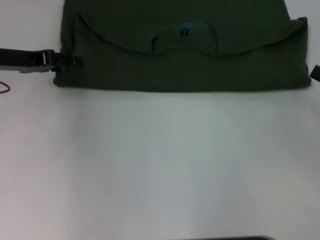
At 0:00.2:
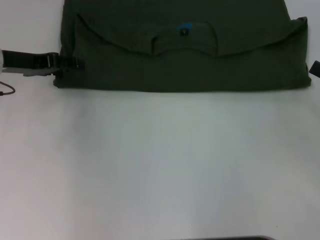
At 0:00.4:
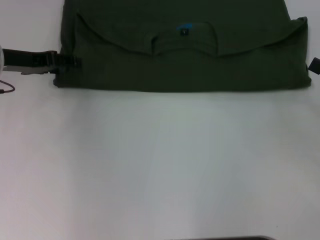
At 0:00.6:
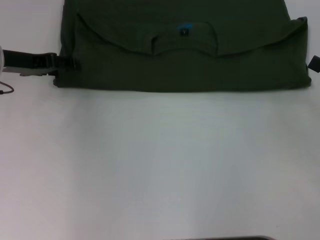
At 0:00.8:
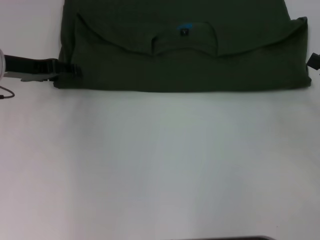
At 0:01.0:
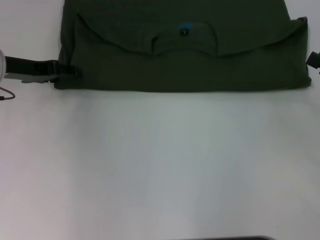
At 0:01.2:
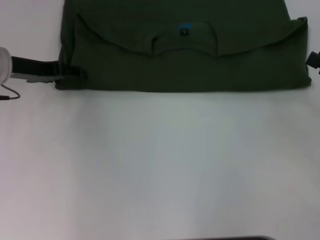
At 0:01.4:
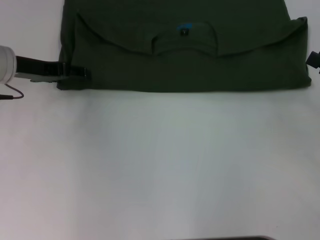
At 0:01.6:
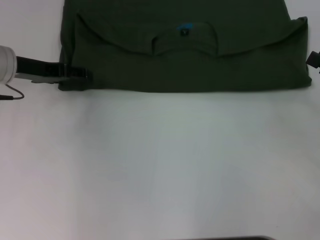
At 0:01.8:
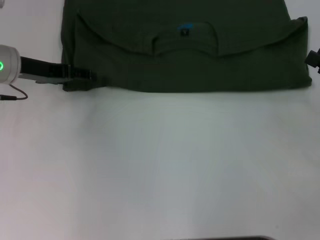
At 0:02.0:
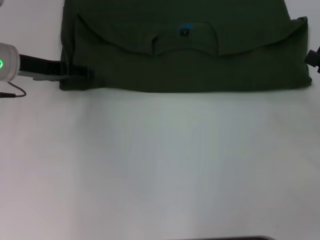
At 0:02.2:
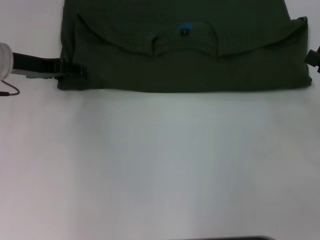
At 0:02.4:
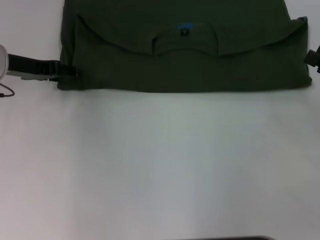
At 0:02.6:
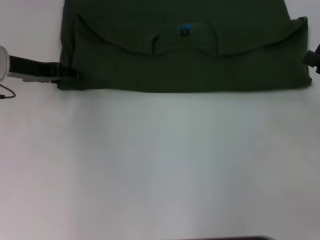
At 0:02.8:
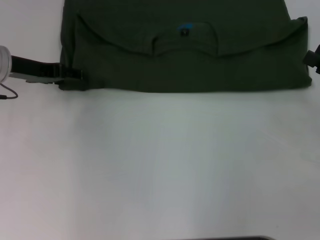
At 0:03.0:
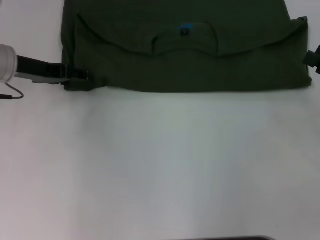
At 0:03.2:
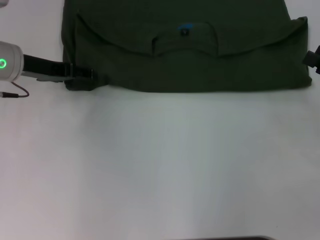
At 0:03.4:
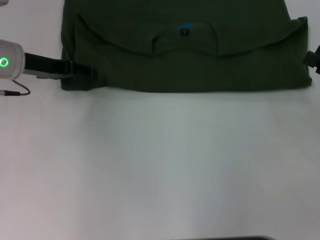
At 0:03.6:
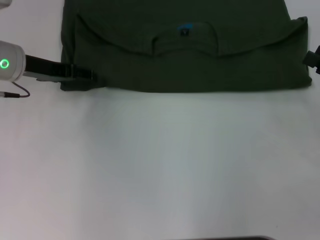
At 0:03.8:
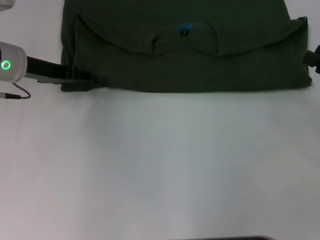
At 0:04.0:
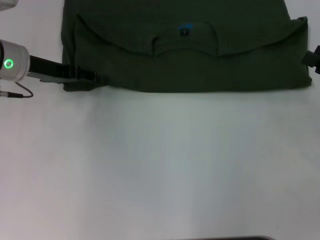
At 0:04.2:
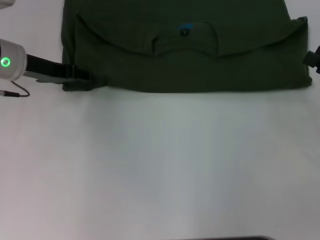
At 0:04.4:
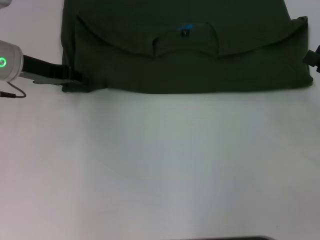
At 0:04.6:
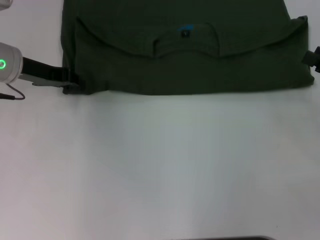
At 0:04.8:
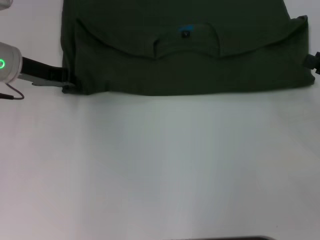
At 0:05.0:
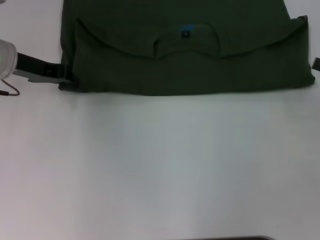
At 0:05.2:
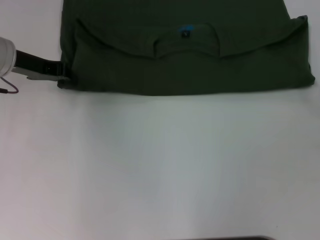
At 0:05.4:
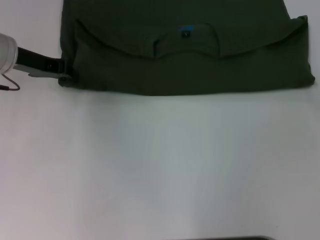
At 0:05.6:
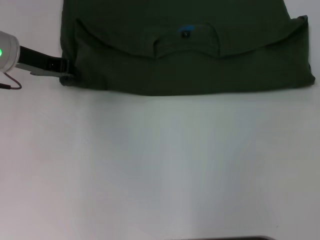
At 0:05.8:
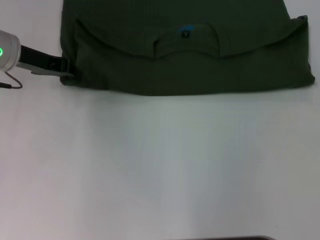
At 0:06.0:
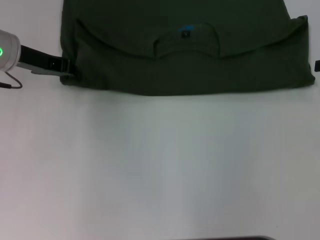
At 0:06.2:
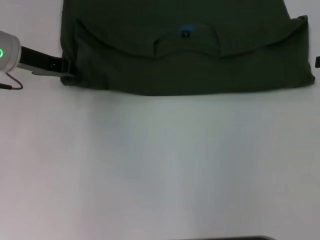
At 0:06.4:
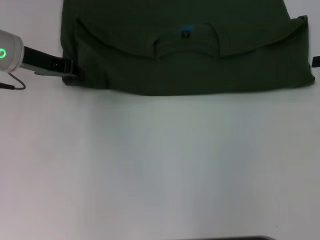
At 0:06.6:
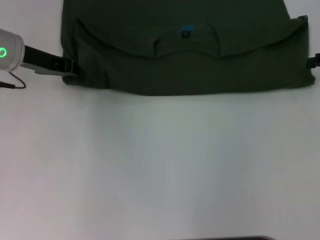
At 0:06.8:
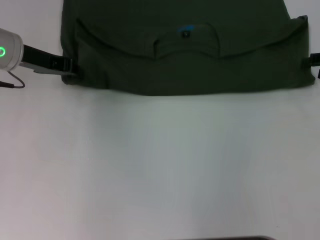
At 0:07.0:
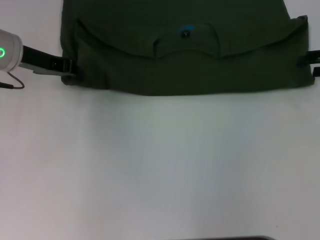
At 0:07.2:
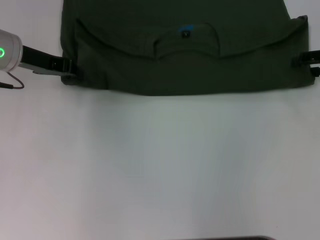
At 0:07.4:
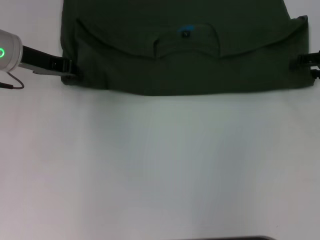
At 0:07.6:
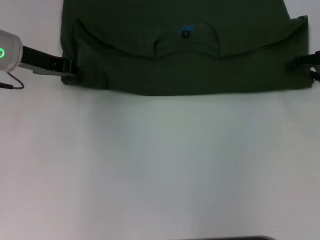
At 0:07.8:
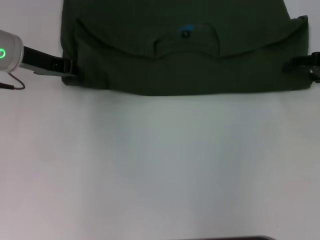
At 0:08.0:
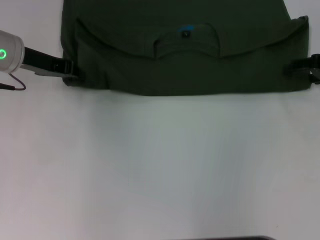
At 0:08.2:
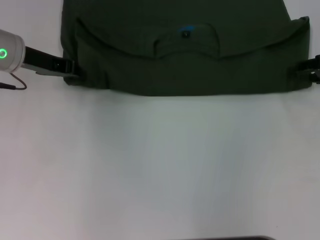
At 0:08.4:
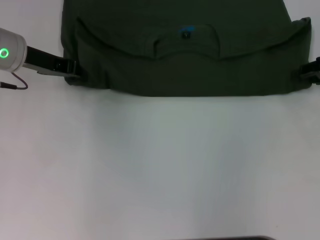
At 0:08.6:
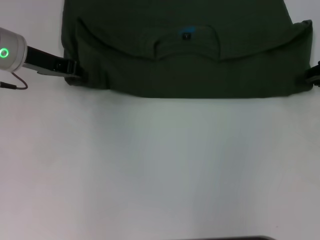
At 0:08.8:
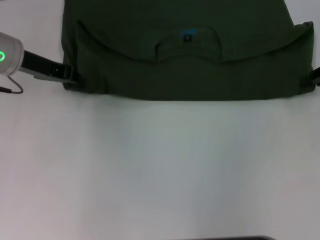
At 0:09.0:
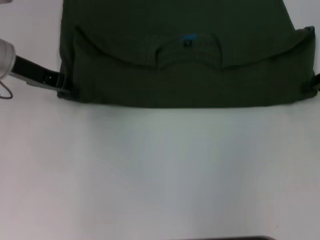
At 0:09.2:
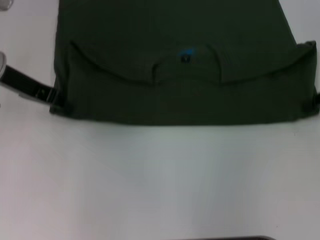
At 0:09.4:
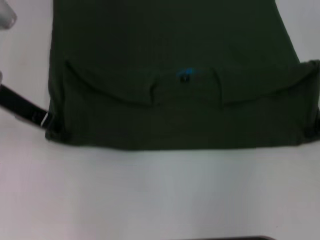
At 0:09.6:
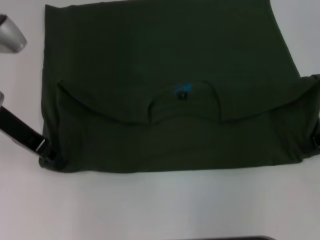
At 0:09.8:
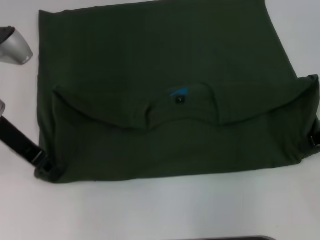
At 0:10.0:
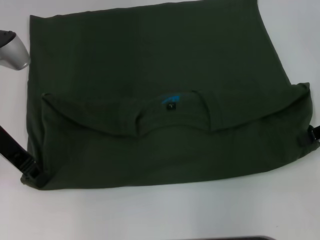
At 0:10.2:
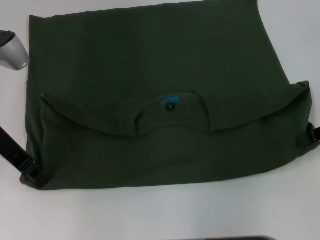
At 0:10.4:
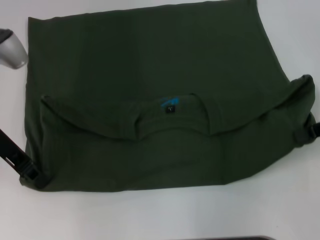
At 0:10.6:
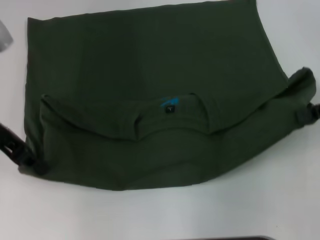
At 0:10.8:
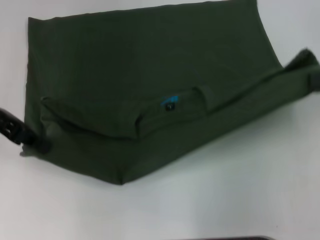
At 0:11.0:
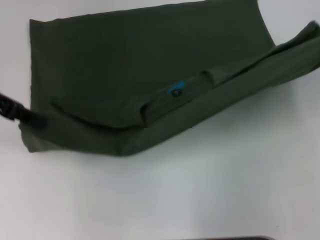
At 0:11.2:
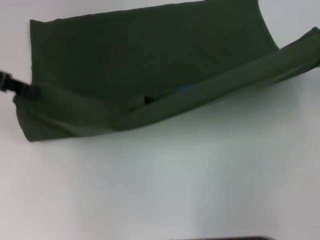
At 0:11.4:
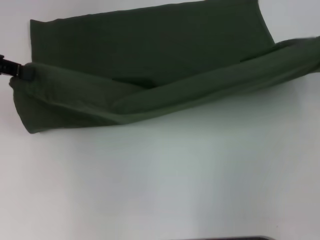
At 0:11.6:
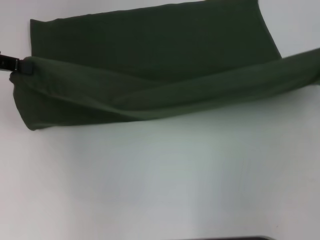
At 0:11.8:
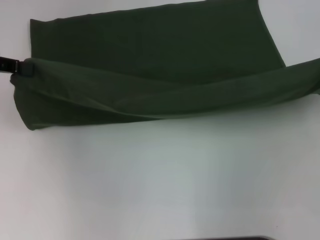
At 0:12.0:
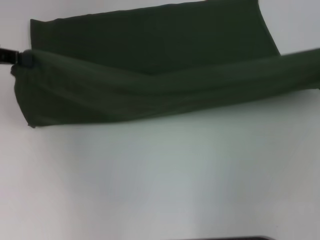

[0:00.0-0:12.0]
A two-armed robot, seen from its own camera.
Step, 0:00.0 to 0:10.0: Pull the clothes with your left hand.
Step, 0:00.0 to 0:10.0: Pull the clothes with your right hand.
0:00.0 to 0:01.6: The grippers make only small movements.
0:01.6 to 0:03.0: The two grippers keep their place.
0:03.0 to 0:04.4: The grippers stay close to where they were, moving slightly.
0:04.4 to 0:06.0: The left gripper closes its fingers. Meanwhile the right gripper moves forward and upward, some 10 cm.
0:07.6 to 0:09.0: The right gripper closes its fingers.
0:09.0 to 0:10.4: Both grippers travel together backward, approximately 5 cm.
0:10.4 to 0:12.0: The left gripper shifts some 10 cm to the left and upward. The right gripper moves to the right, roughly 5 cm.

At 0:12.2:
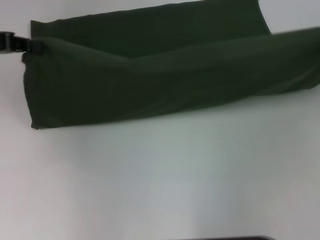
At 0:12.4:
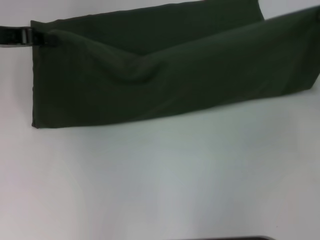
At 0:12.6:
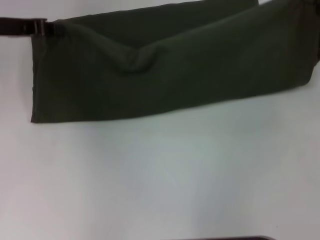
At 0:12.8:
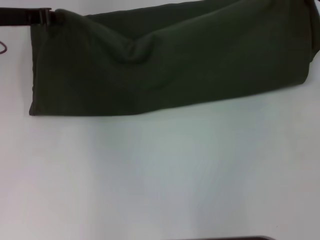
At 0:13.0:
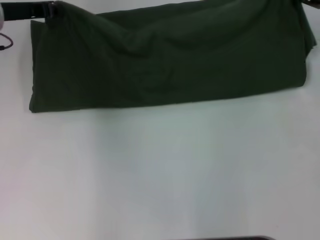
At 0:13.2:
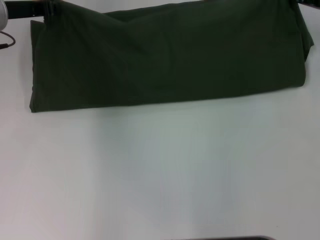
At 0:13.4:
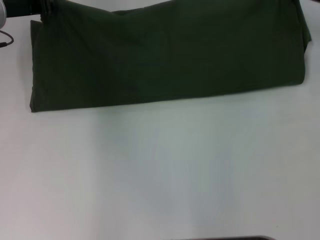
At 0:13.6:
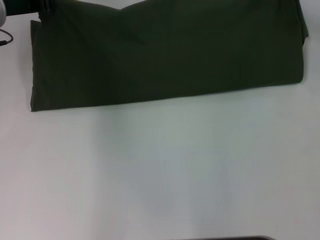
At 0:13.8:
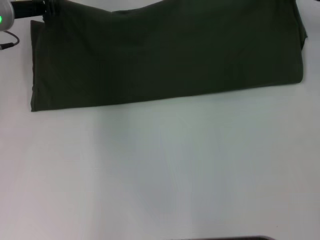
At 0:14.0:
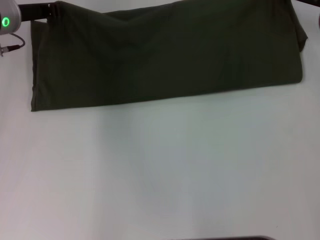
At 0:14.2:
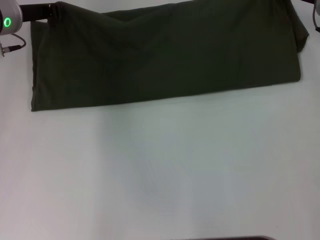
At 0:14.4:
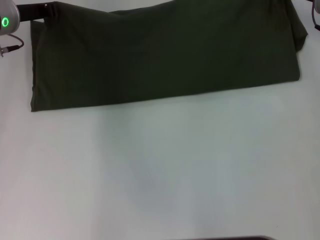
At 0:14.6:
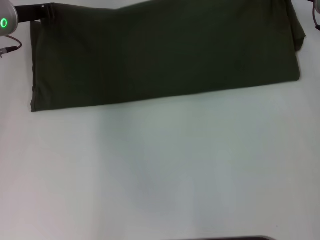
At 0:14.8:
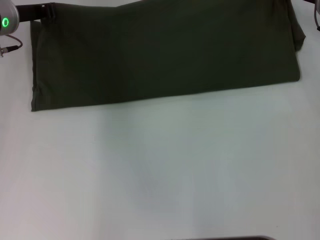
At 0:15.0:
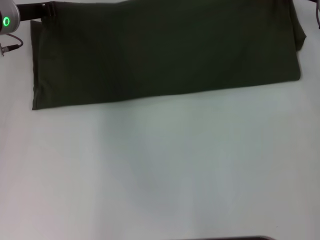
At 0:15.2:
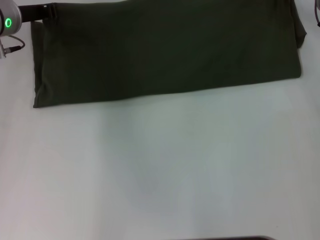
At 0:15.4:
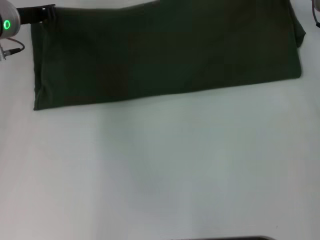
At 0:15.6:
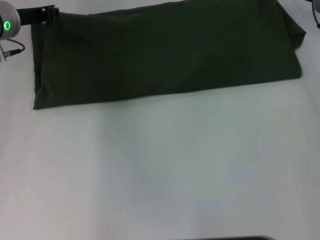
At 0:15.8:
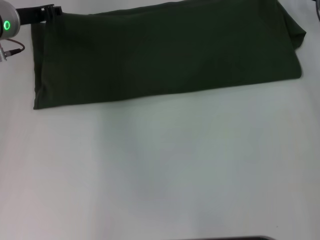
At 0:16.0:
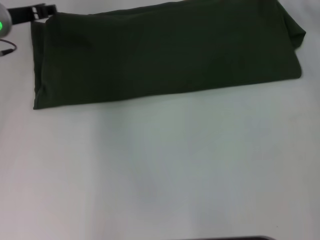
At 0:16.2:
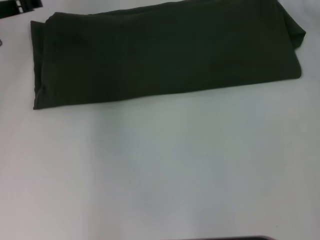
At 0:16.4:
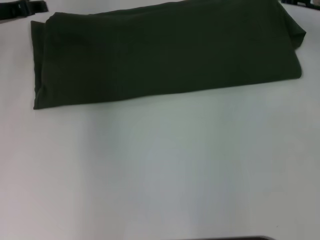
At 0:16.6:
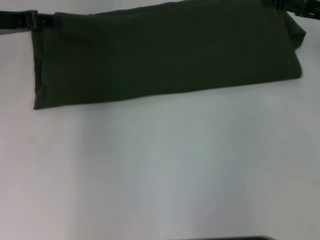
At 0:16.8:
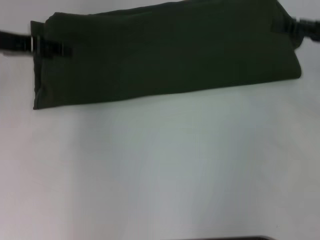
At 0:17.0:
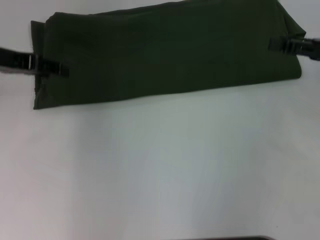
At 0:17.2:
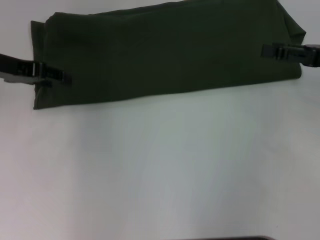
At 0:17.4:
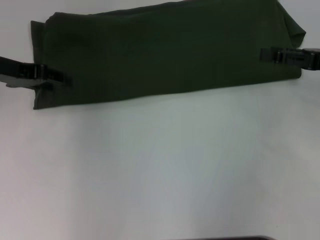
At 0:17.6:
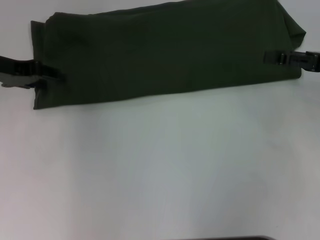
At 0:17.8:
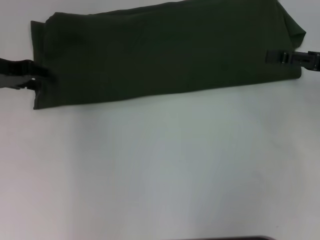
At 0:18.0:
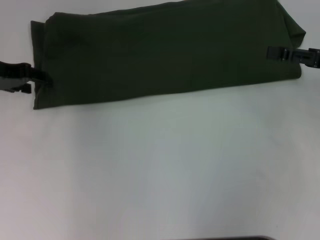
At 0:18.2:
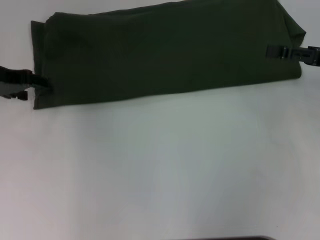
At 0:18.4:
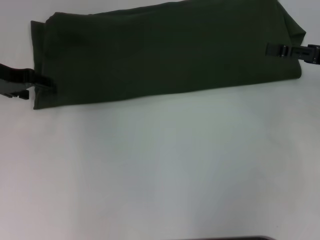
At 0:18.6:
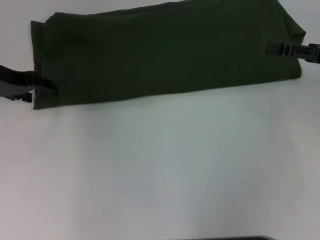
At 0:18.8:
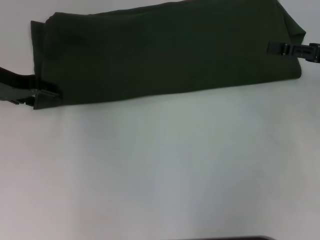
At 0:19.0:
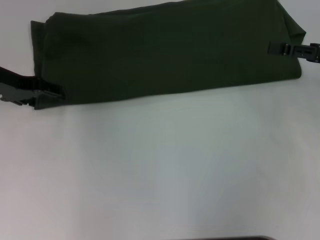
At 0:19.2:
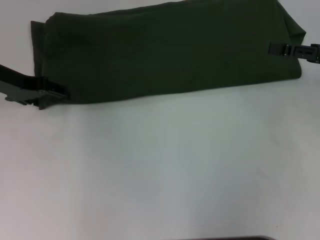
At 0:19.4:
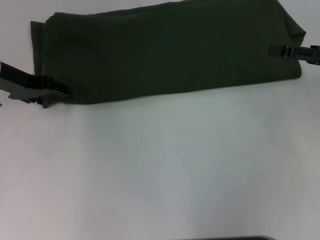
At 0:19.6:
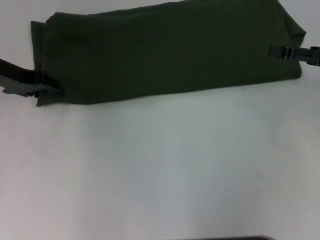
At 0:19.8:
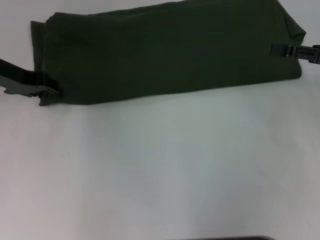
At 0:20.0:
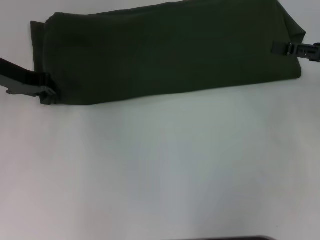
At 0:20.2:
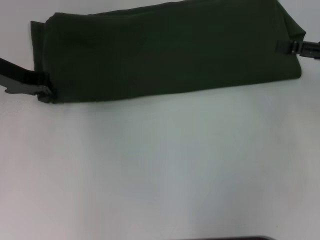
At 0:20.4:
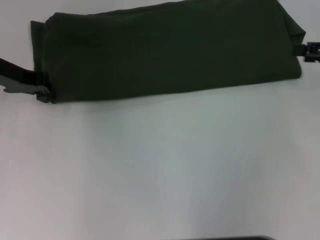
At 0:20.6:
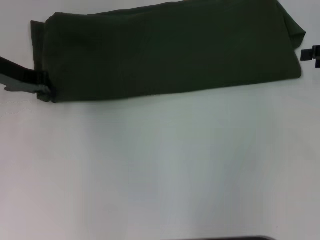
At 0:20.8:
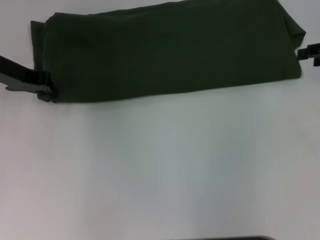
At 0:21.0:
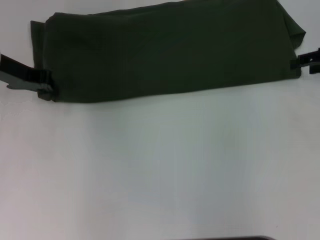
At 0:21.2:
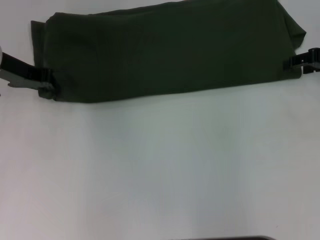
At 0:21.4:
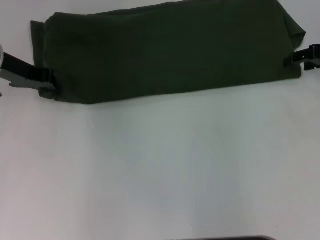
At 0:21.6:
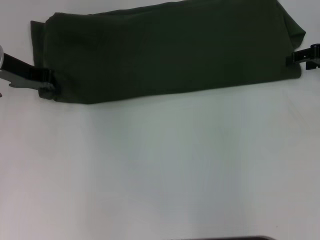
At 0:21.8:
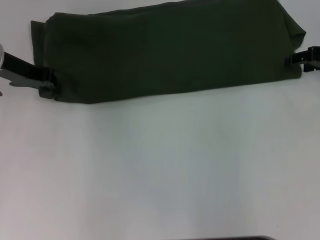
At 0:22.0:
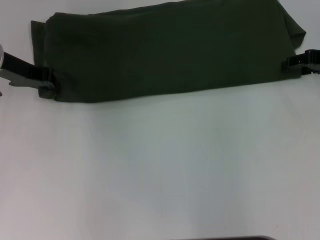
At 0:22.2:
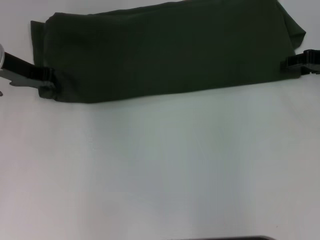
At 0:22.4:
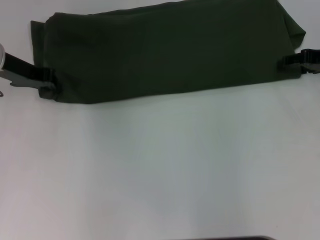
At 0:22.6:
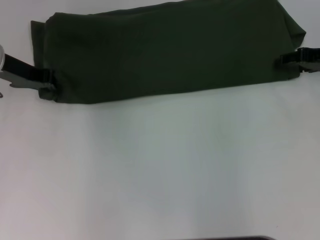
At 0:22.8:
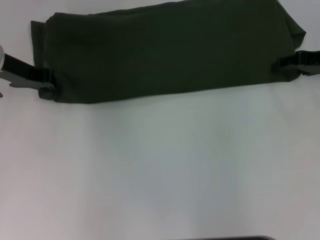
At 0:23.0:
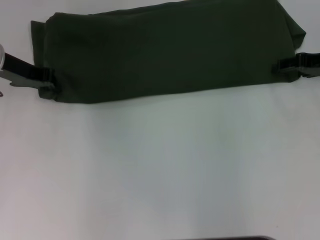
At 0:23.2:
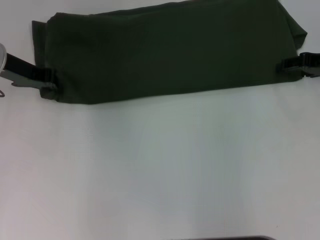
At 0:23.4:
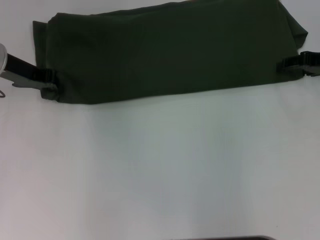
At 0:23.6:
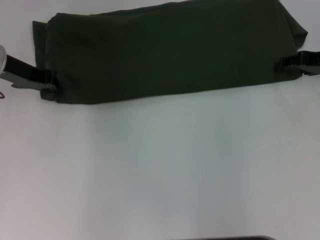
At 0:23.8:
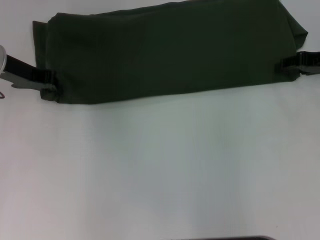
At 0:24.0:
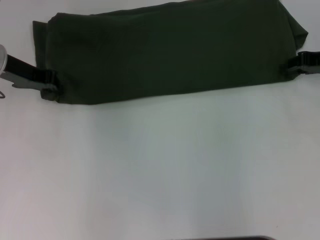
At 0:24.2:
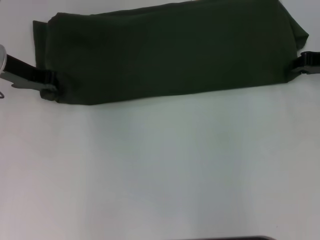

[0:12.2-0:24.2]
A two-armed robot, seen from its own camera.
Step, 0:12.2 to 0:16.0: Fold the clothes with your right hand.
0:12.2 to 0:13.8: The left gripper heads to the right and forward, covering approximately 10 cm, while the right gripper goes roughly 15 cm forward and to the left.
0:13.8 to 0:15.2: The grippers stay close to where they were, moving slightly.
0:15.2 to 0:16.6: The right gripper heads backward, covering approximately 10 cm, and opens; the left gripper shifts by roughly 10 cm, and opens its fingers.
0:16.6 to 0:18.2: The right gripper is displaced backward by some 5 cm.
0:18.2 to 0:19.8: The grippers make only small movements.
0:19.8 to 0:21.2: The left gripper closes its fingers; the right gripper travels forward by about 5 cm.
0:22.6 to 0:24.2: The right gripper closes its fingers.
